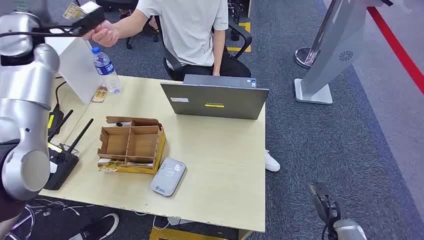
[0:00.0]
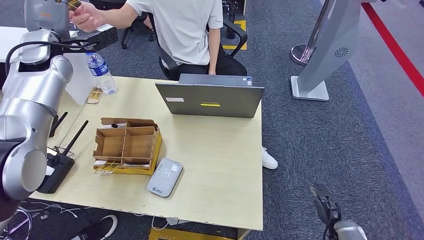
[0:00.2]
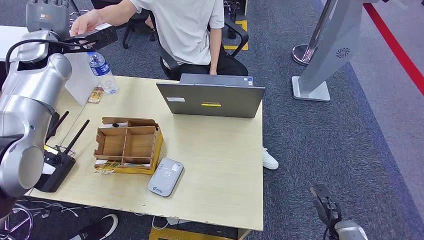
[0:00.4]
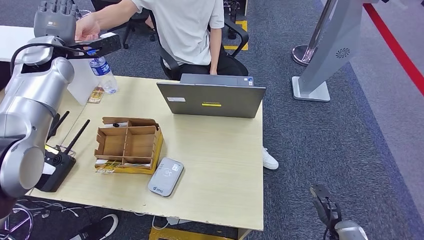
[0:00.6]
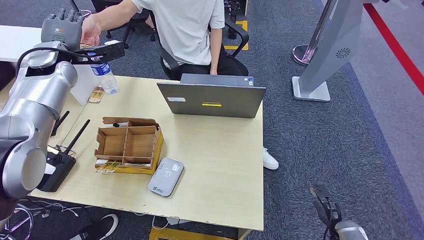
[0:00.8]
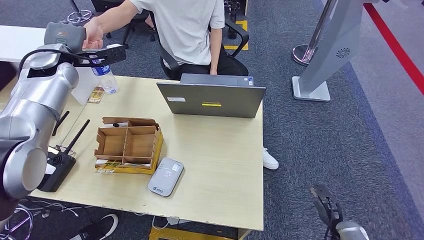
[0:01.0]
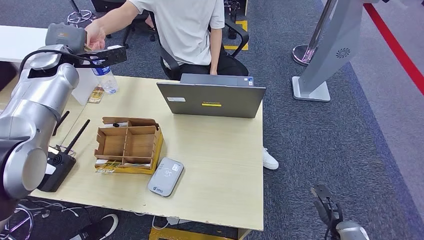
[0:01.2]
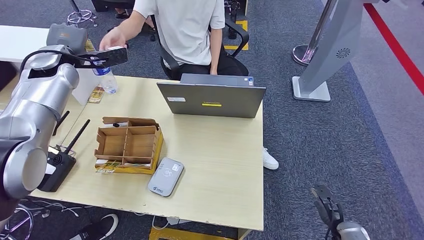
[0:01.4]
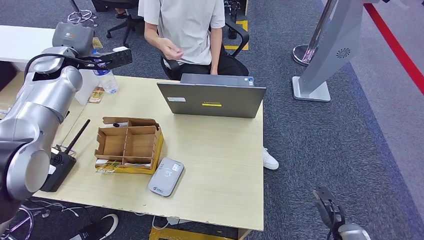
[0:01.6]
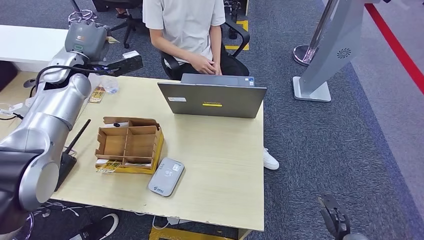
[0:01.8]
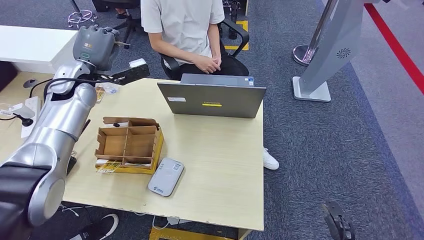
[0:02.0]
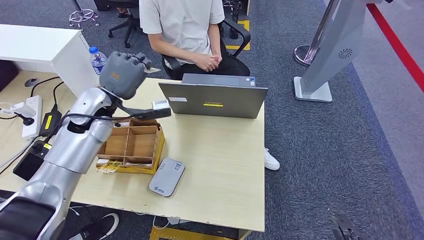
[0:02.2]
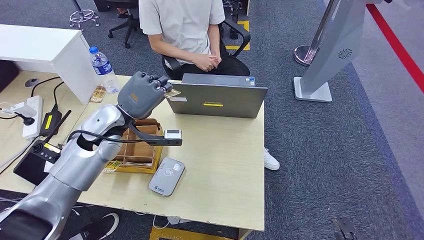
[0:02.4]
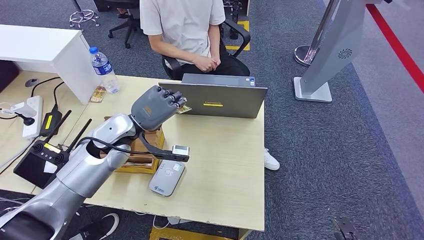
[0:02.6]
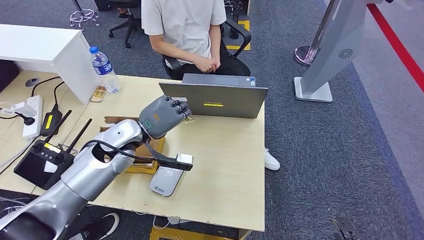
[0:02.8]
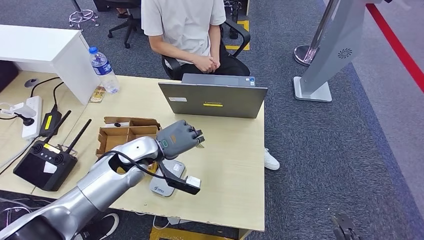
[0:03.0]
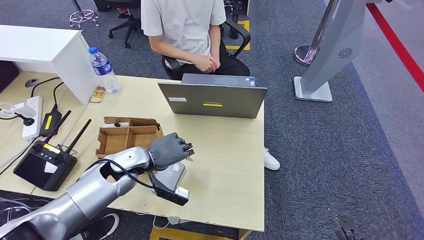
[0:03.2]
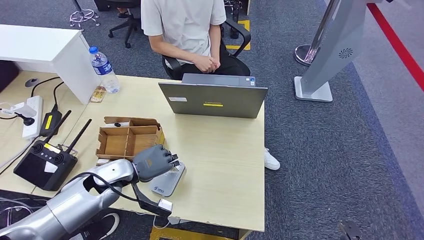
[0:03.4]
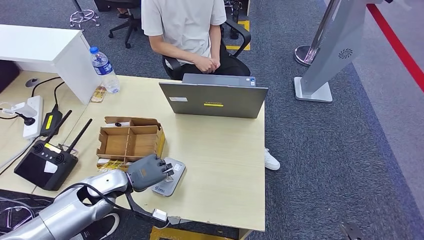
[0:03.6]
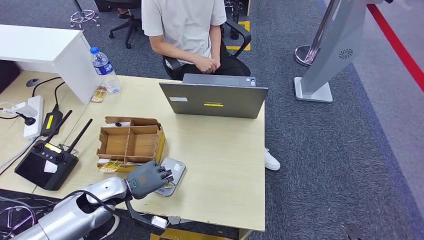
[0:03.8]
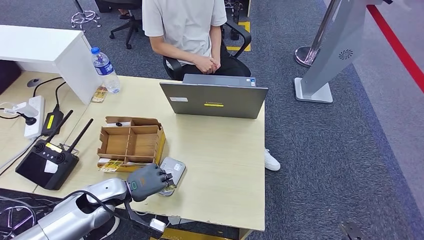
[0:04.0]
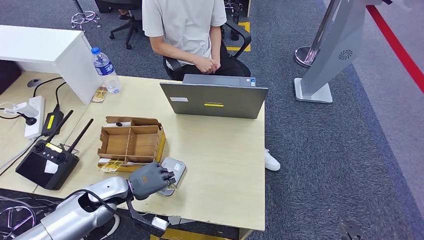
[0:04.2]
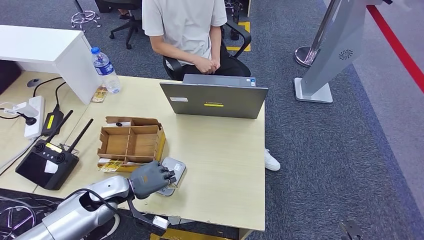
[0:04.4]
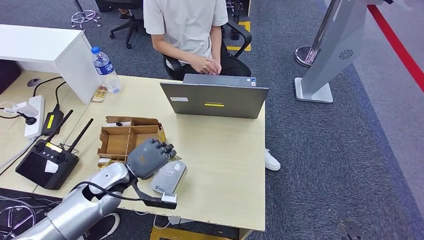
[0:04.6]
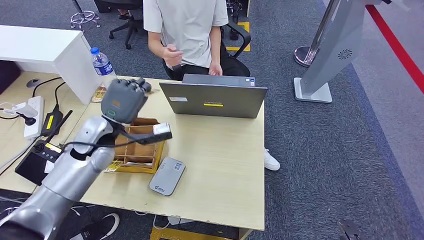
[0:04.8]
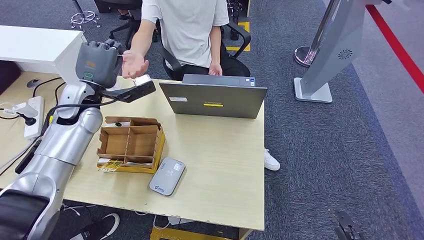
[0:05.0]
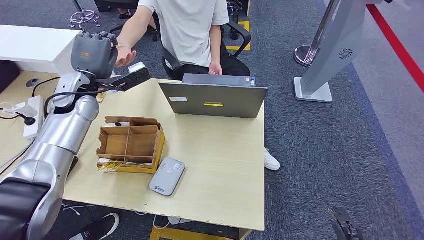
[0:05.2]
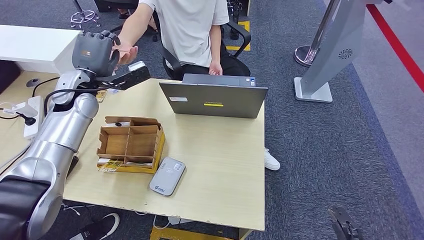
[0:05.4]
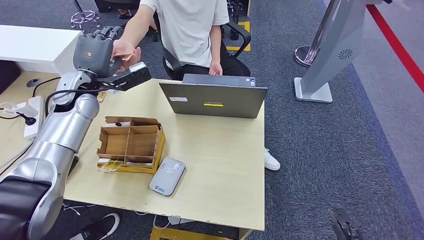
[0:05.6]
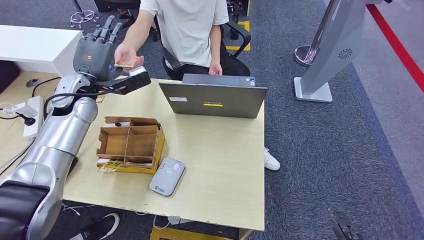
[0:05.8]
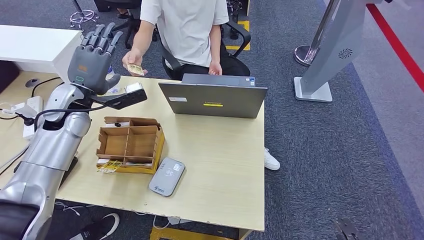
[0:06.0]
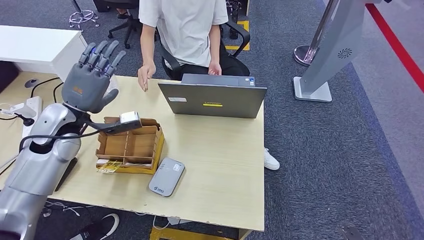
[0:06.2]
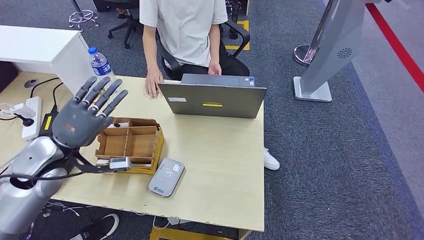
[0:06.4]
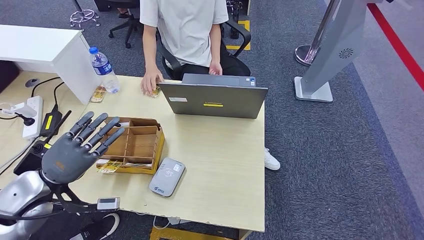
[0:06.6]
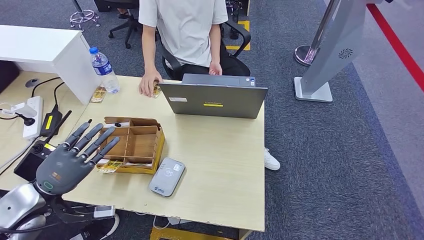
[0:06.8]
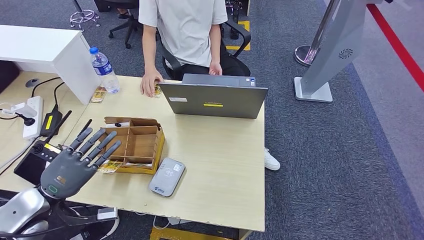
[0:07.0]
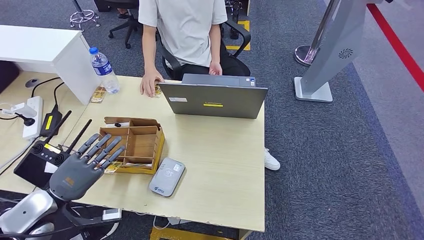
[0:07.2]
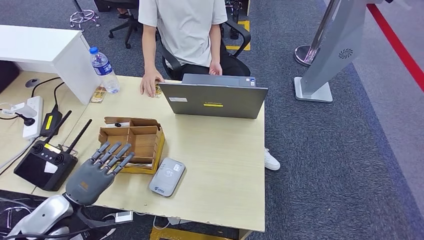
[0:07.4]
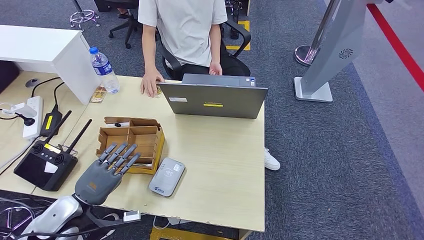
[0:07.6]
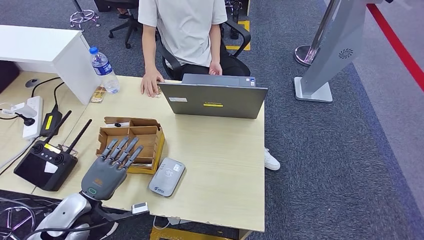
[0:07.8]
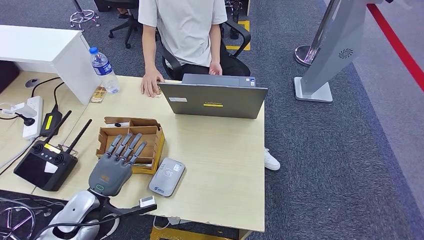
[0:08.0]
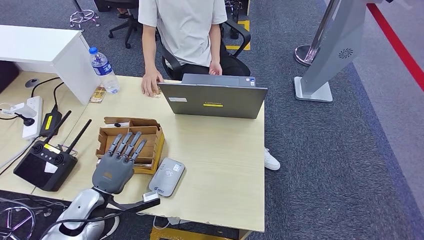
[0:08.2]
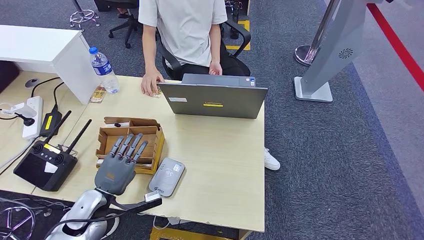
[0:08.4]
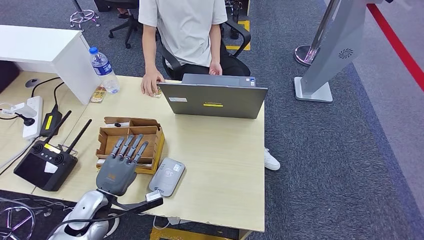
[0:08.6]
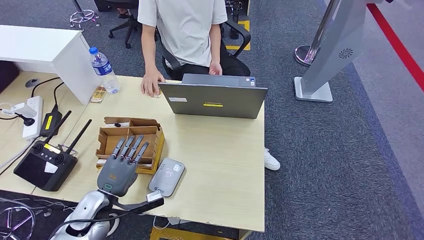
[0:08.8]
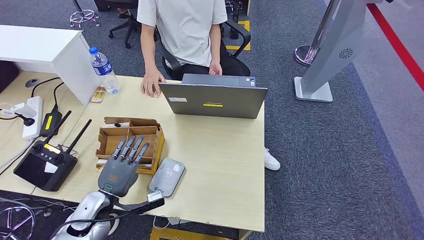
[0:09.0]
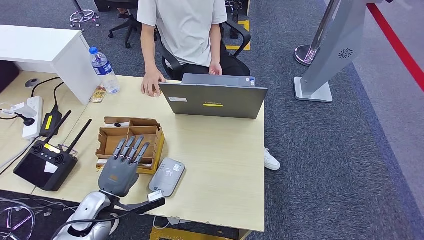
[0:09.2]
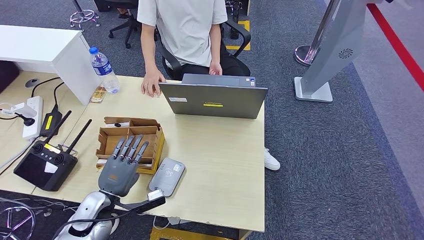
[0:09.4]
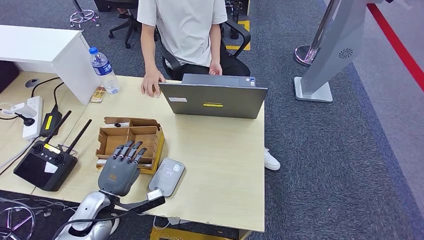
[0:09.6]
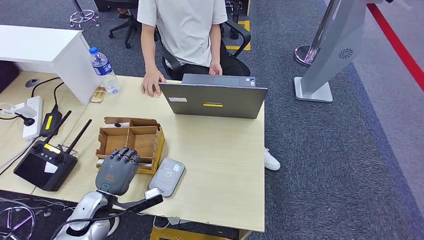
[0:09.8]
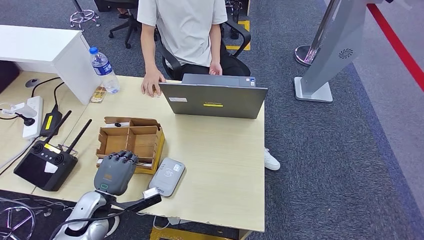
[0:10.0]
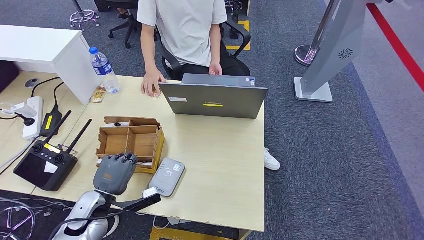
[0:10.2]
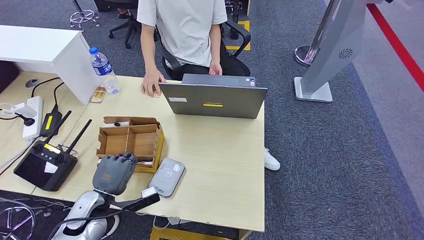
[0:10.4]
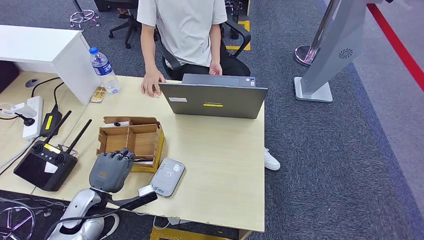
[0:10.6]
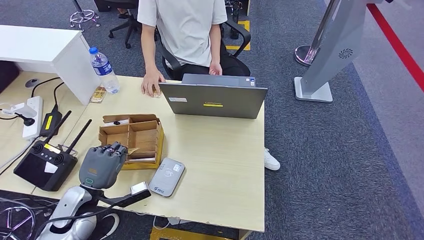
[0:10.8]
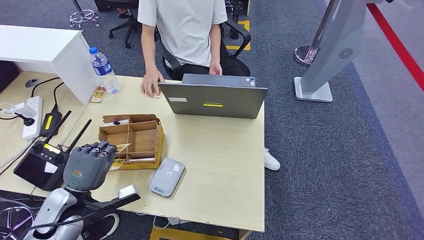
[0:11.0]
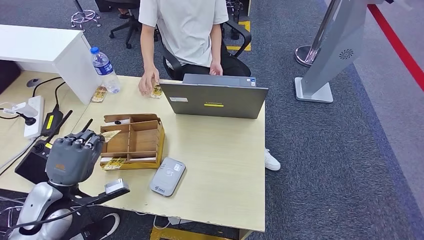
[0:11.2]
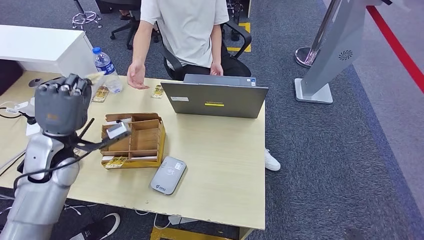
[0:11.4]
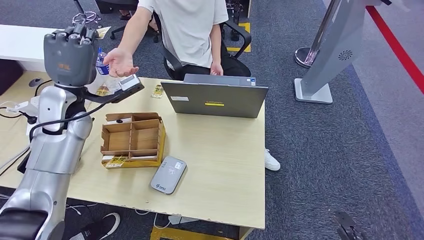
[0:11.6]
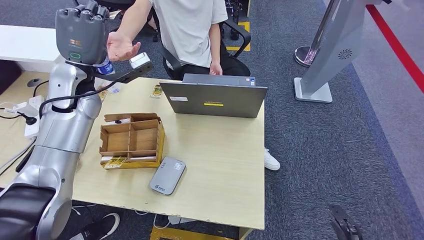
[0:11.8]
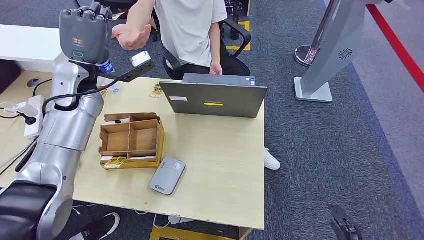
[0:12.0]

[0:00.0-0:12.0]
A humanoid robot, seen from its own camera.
Step, 0:00.0 to 0:02.2: Take the ID card from the person's hand.
Step, 0:02.4 to 0:05.0: Place the ID card on the card reader.
Step, 0:05.2 to 0:07.4: Hand the ID card to the person.
Step, 0:07.6 to 0:11.8: Pick up the room key from the key card box.
0:03.0 to 0:04.4: The left hand moves downward, to the left and backward, roughly 15 cm.
0:04.4 to 0:06.0: The left hand travels upward and forward by about 25 cm.
0:06.0 to 0:07.6: The right hand goes about 5 cm backward. The left hand heads backward and downward, covering approximately 30 cm.
0:07.6 to 0:09.0: The left hand travels to the right by about 5 cm.
0:09.0 to 0:10.4: There are only small adjustments of the hands.

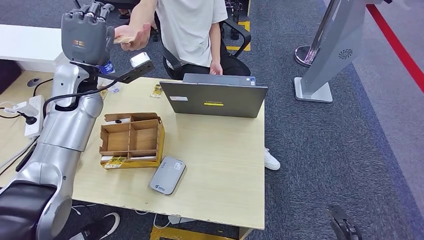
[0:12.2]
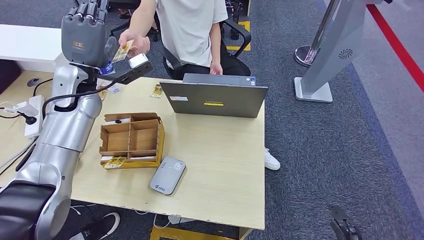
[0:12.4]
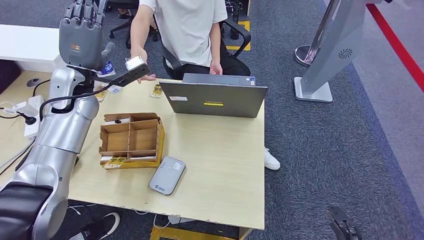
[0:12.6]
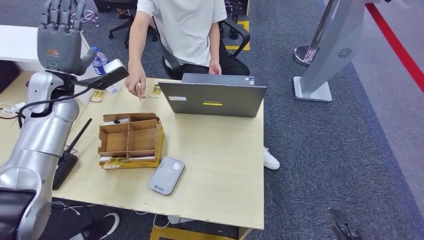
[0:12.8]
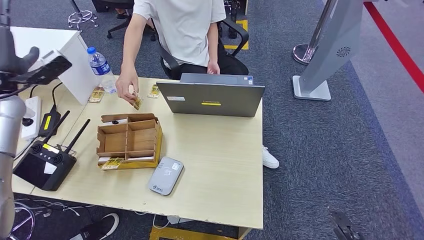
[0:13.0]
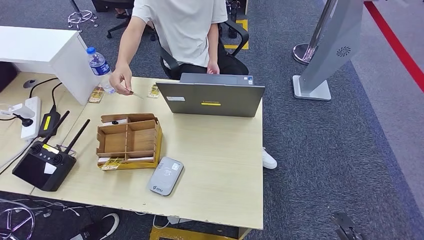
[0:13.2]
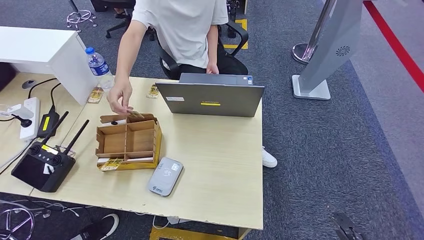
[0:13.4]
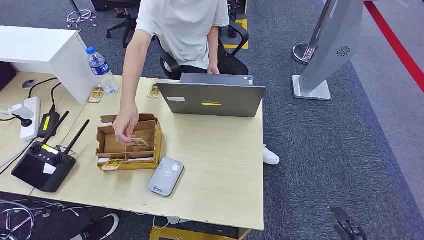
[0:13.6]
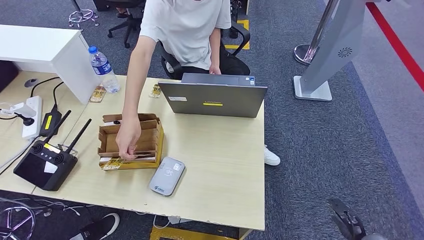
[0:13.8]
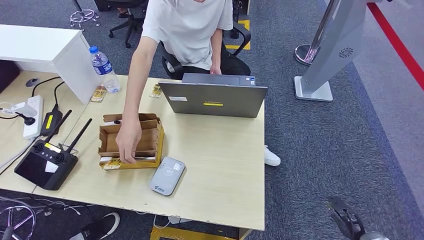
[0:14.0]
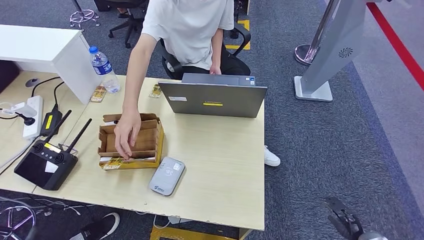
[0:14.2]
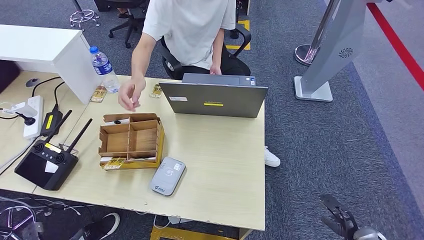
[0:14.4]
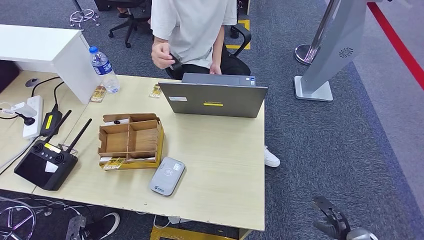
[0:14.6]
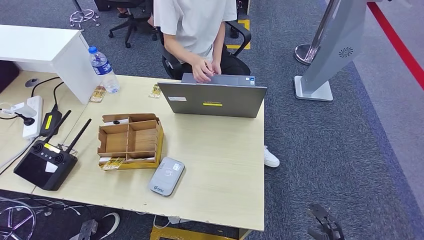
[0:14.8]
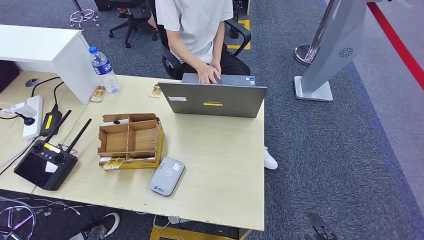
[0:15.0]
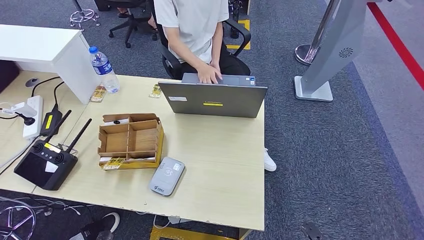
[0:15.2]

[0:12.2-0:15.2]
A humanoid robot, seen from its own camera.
Step, 0:12.2 to 0:15.2: Hand the room key to the person.
0:13.8 to 0:15.2: The right hand goes about 10 cm to the left, backward and downward. The left hand shifts some 25 cm to the right and downward.
